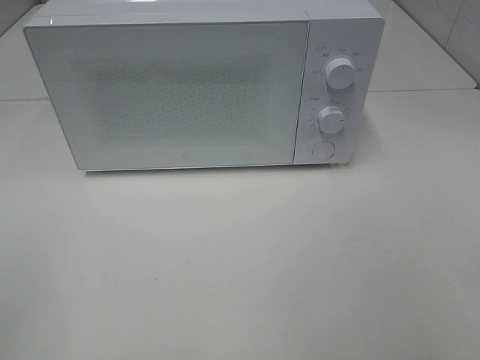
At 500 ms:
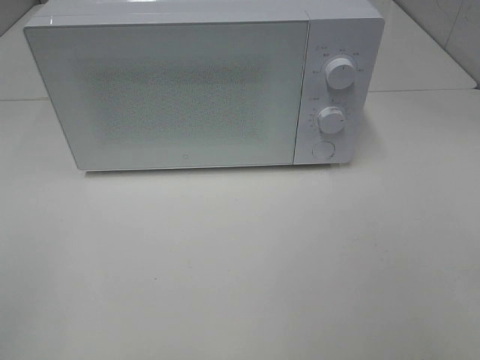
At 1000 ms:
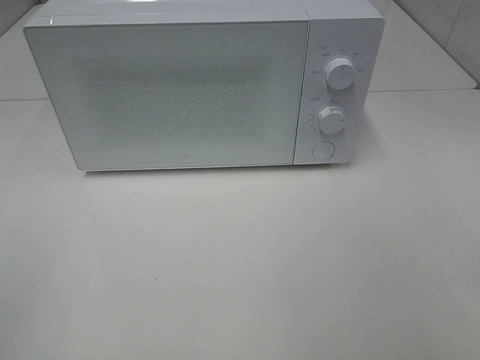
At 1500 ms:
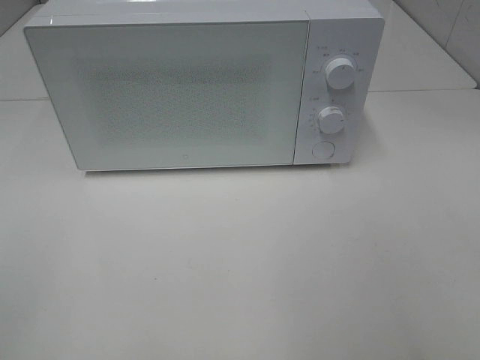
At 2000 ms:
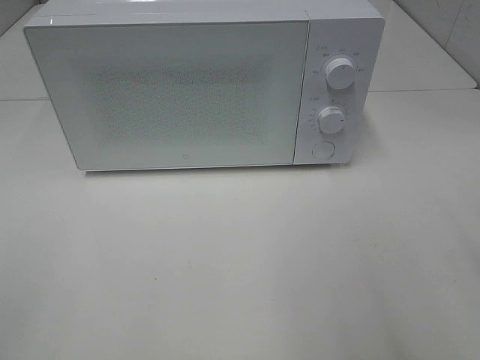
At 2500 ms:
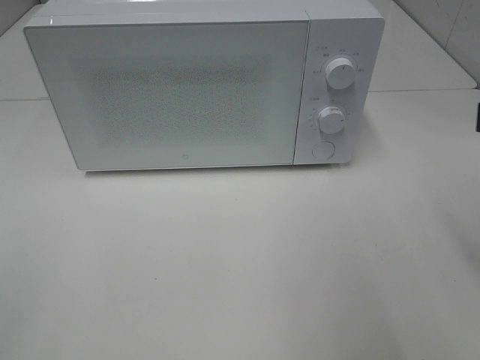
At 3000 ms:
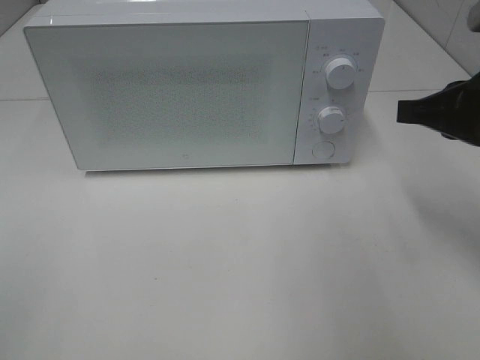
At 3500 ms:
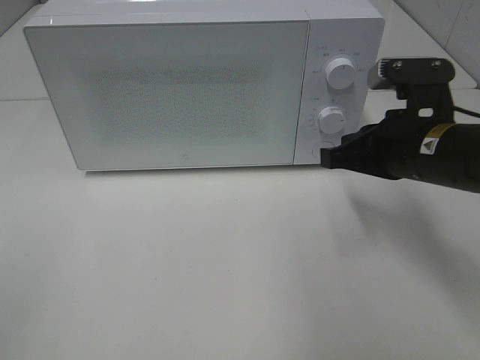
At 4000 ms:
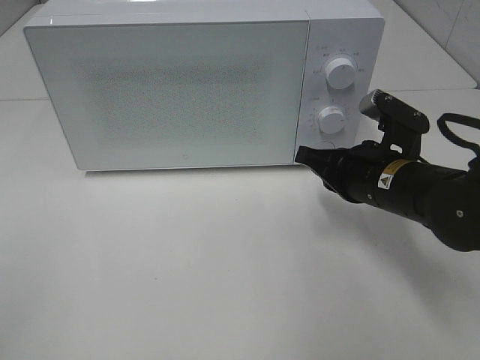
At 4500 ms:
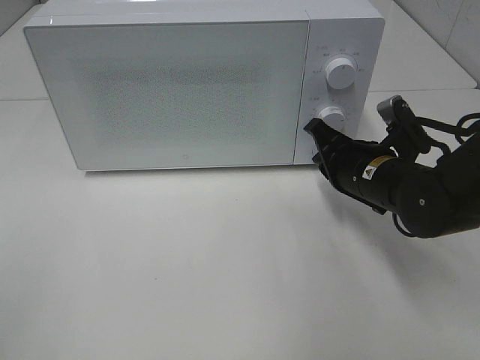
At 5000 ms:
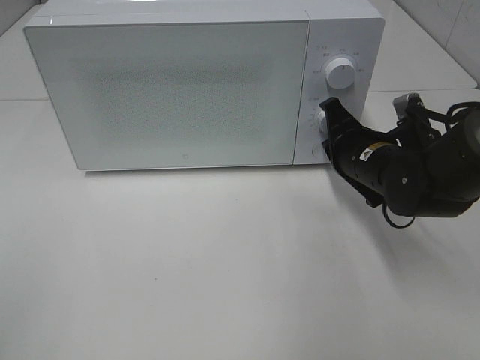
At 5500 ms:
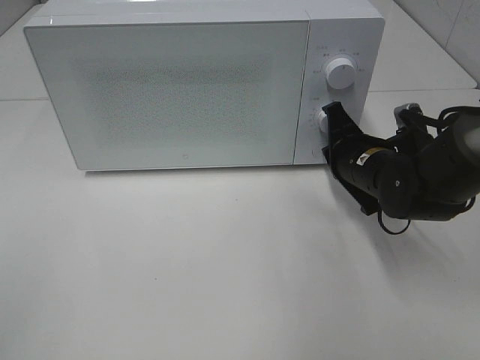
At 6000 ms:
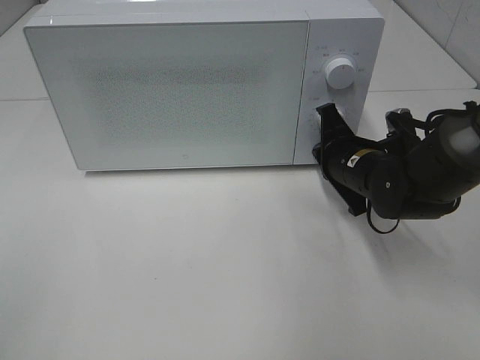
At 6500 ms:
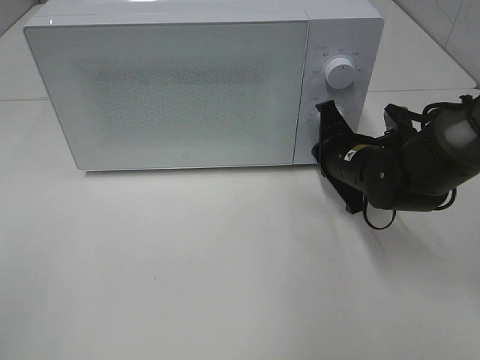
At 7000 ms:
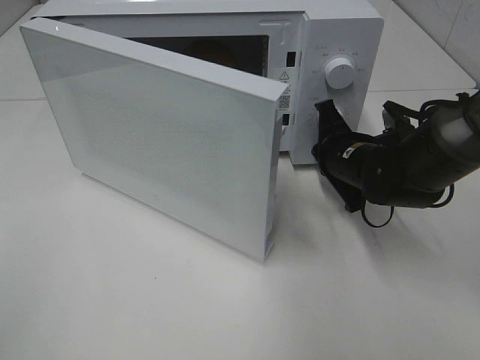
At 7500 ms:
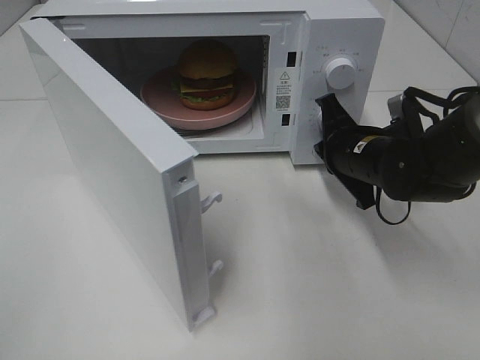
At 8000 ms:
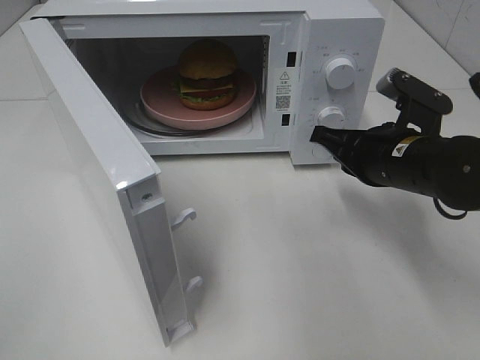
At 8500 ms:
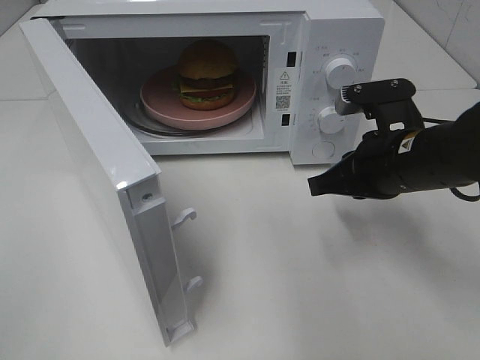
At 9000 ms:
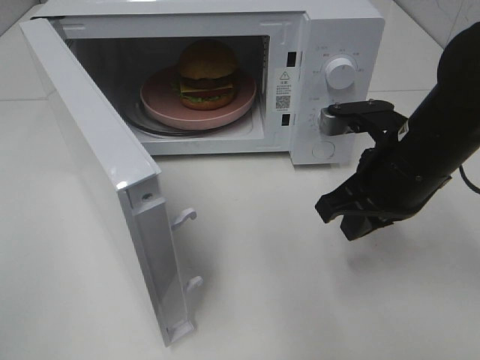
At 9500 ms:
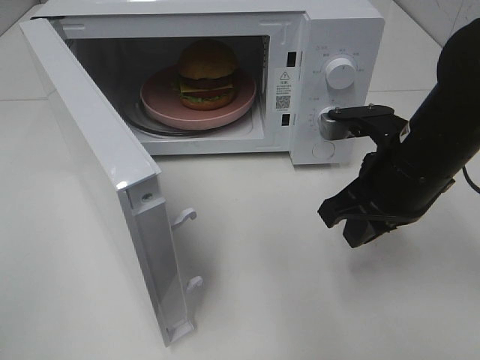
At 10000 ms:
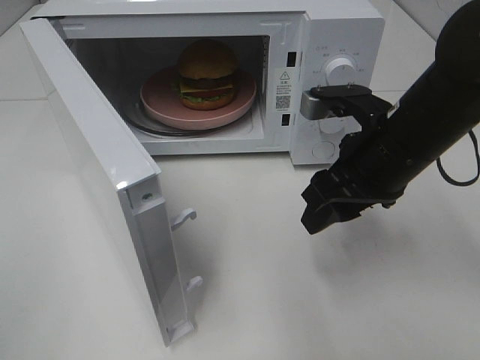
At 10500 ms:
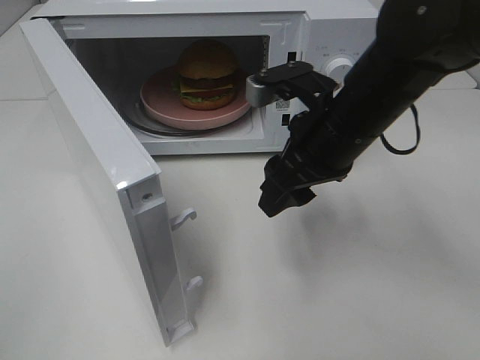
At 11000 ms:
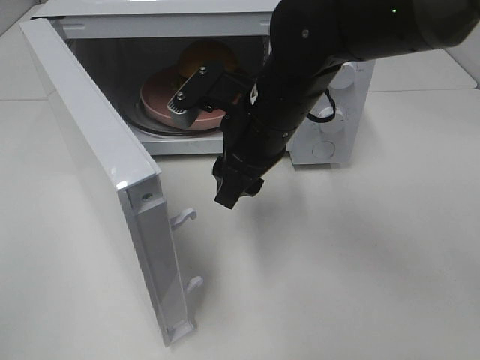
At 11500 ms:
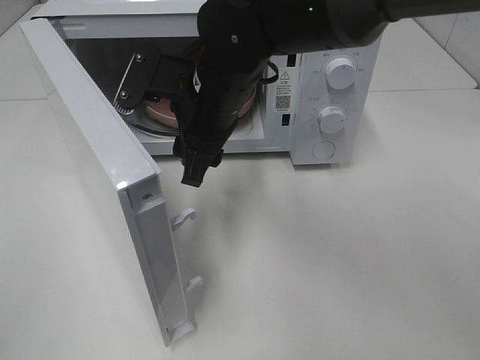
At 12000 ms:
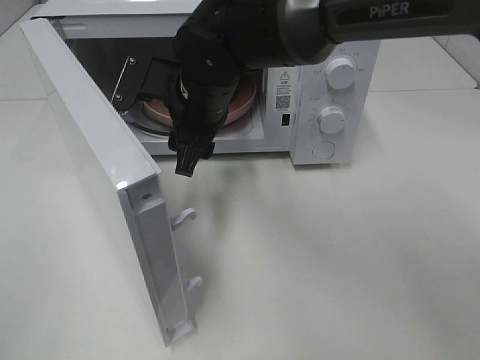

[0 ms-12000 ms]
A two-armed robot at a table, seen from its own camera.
Task of the whole recording: Heat the burger.
Step, 0 ms to 7500 ms: Right hand: press the switch.
2000 ms to 4000 ms: The right gripper moves downward, forward and to the left, roughly 25 cm, and closes.
4000 ms to 6000 ms: The right gripper moves forward, some 5 cm.
6000 ms to 8000 ms: The right gripper heads upward and backward, covering some 10 cm.
8000 ms to 10000 ms: The right gripper shifts by about 5 cm, and opens.
10000 ms to 12000 ms: The right gripper is displaced to the left and forward by approximately 20 cm.

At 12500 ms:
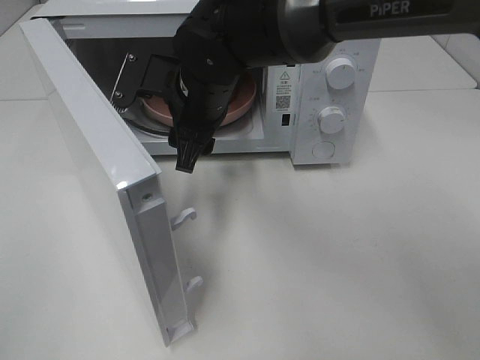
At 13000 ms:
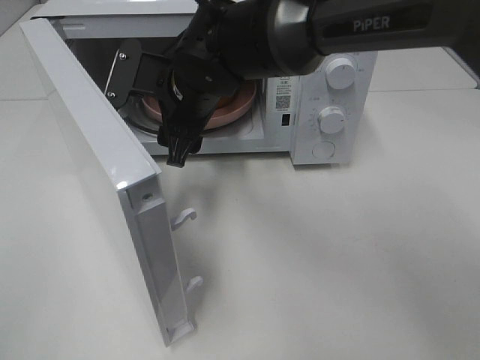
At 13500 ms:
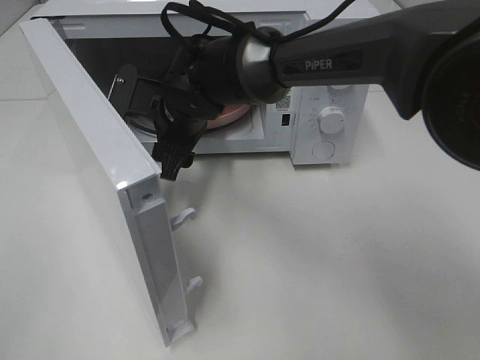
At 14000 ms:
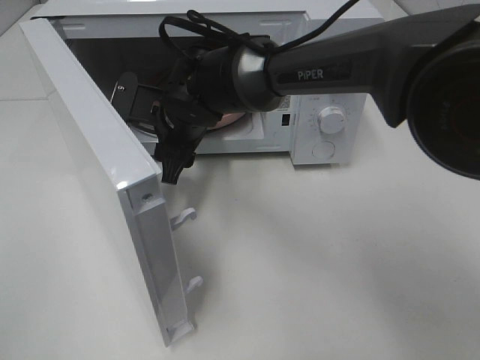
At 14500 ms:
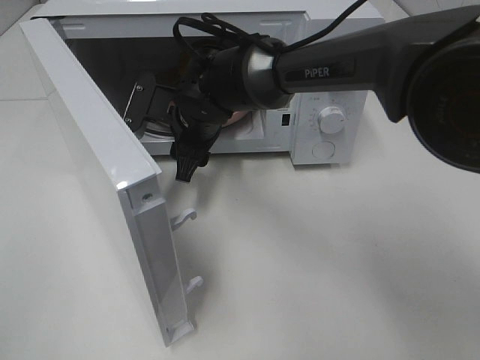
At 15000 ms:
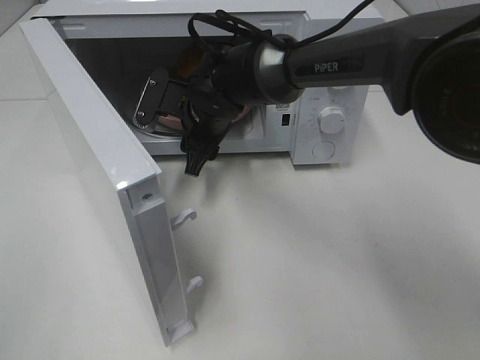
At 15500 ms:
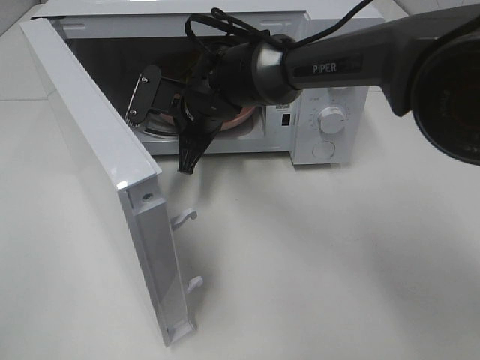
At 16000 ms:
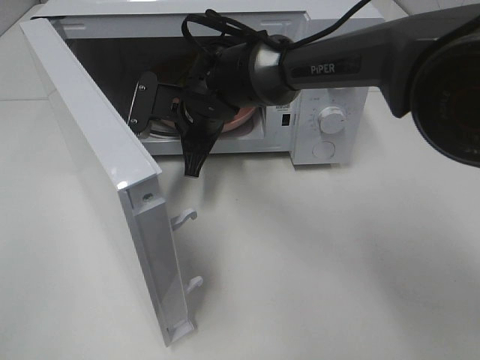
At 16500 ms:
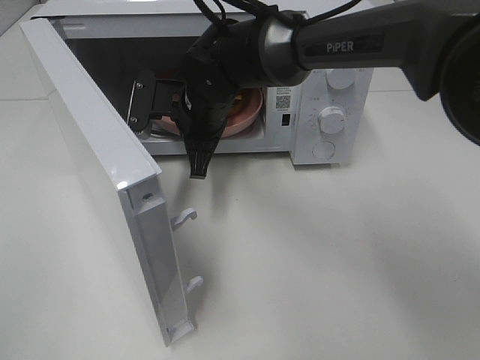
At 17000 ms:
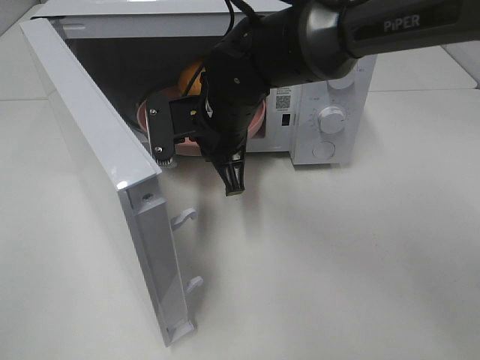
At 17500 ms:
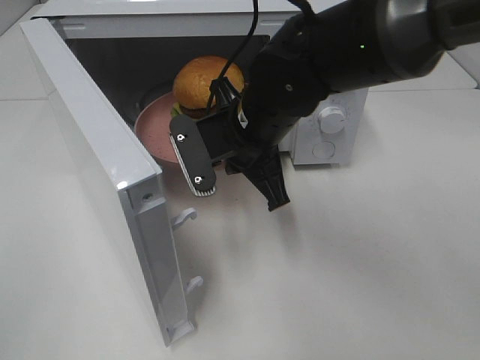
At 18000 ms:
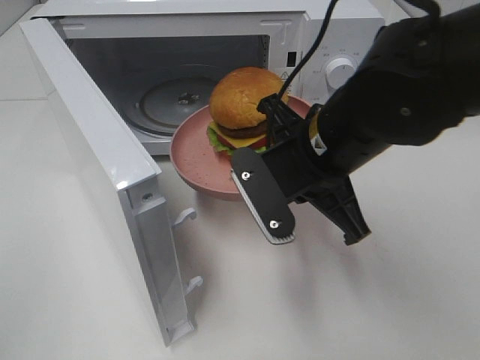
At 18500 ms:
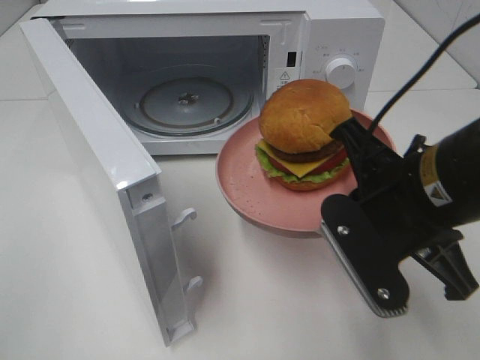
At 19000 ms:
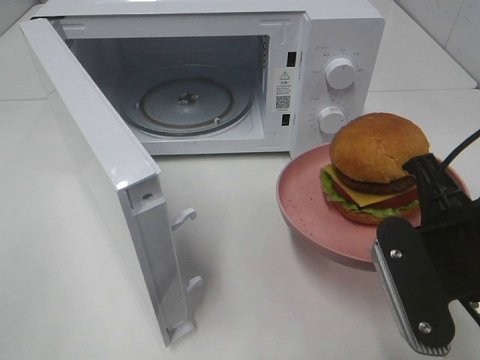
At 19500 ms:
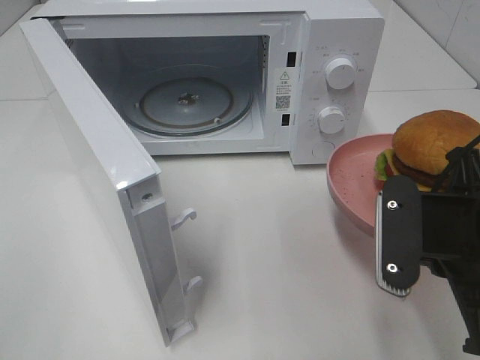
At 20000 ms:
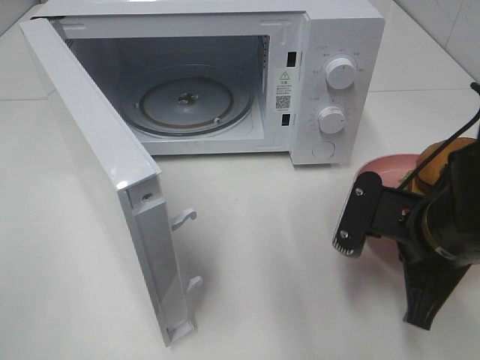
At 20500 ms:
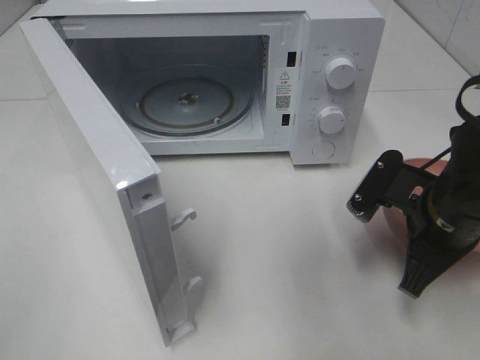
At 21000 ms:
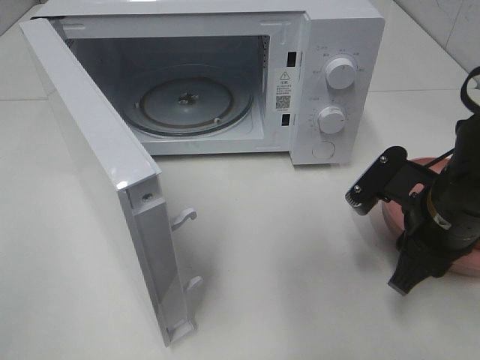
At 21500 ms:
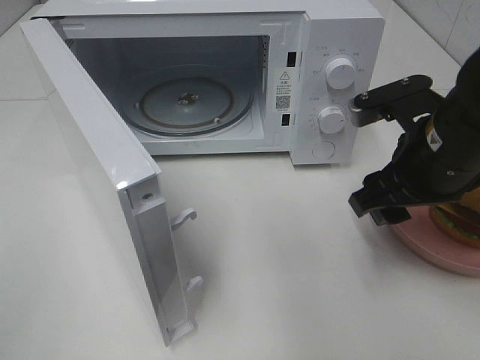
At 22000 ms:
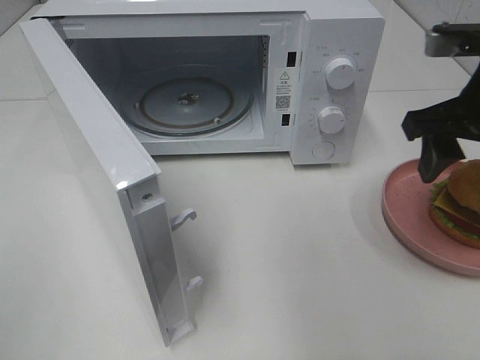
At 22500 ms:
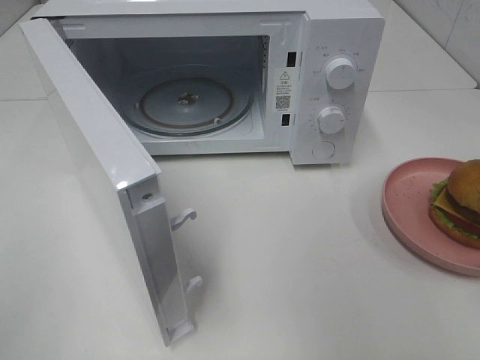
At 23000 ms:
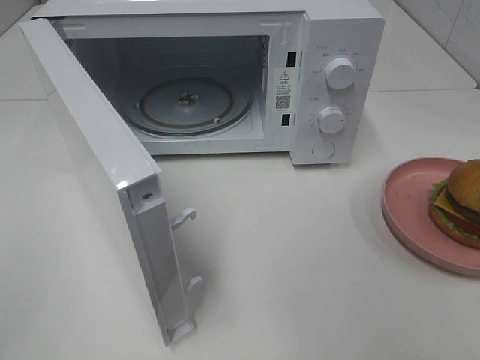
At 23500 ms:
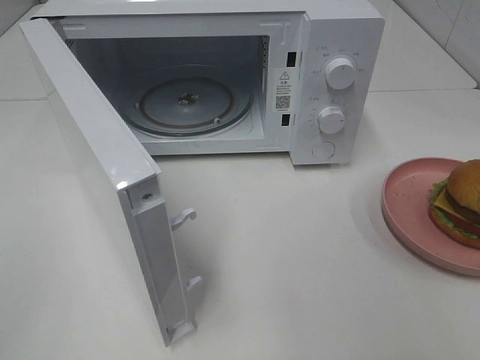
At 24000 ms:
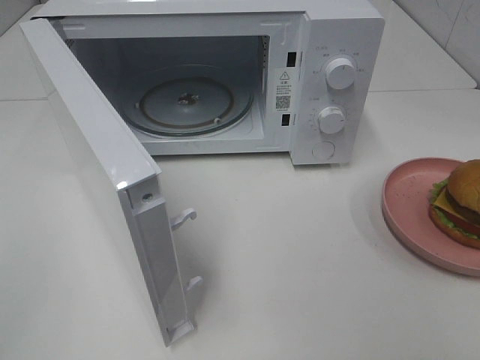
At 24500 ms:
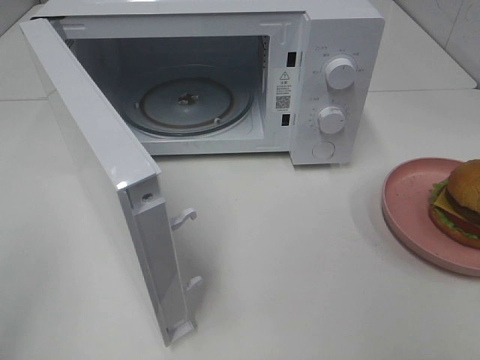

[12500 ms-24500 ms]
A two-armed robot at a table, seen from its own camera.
Task of the whole recording: Heat the burger.
Step, 12500 ms to 15500 ms: Right hand: grab the plate with the hamburger.
Step, 16000 ms to 21000 ms: Right hand: place the plate on the table.
12500 ms to 14500 ms: The right gripper is displaced downward by approximately 5 cm.
14500 ms to 16500 ms: The right gripper closes up.
16500 ms to 18500 ms: The right gripper goes roughly 25 cm backward and to the right.
18500 ms to 20500 ms: The right gripper is displaced downward and to the right by approximately 10 cm.
20500 ms to 22500 ms: The right gripper is displaced upward by approximately 20 cm, and opens its fingers.

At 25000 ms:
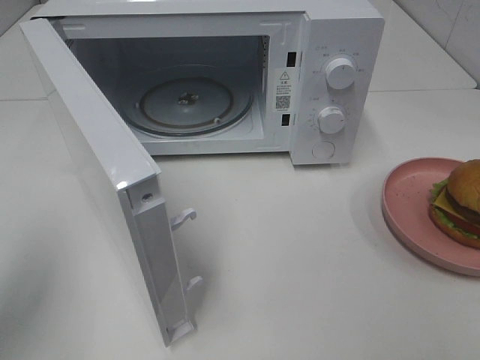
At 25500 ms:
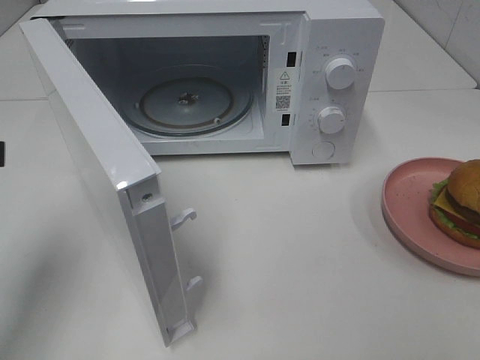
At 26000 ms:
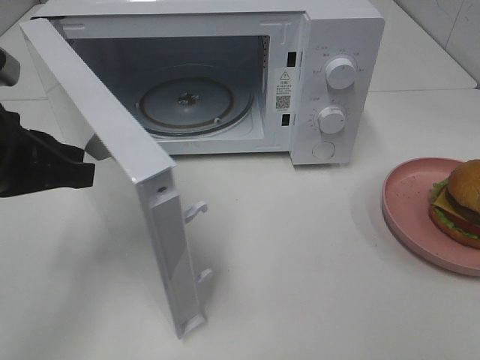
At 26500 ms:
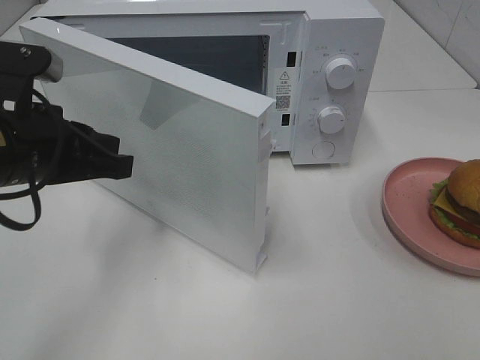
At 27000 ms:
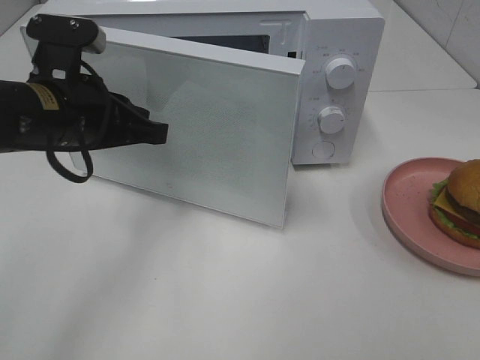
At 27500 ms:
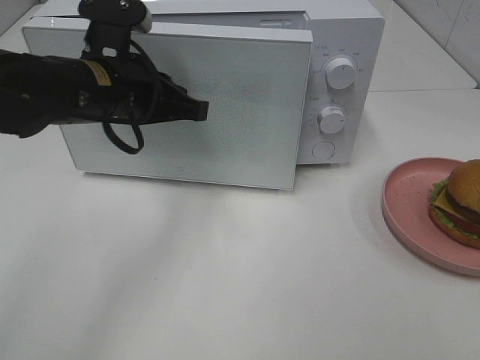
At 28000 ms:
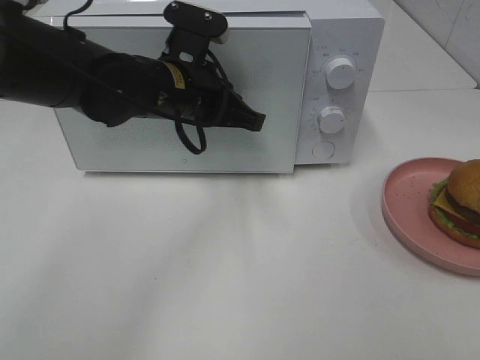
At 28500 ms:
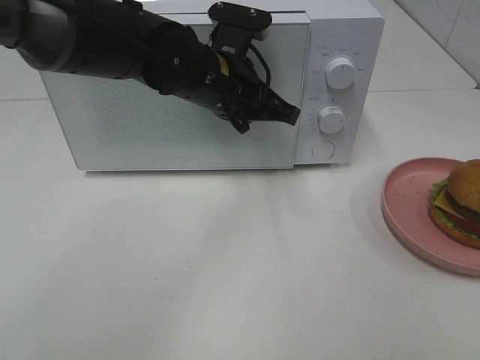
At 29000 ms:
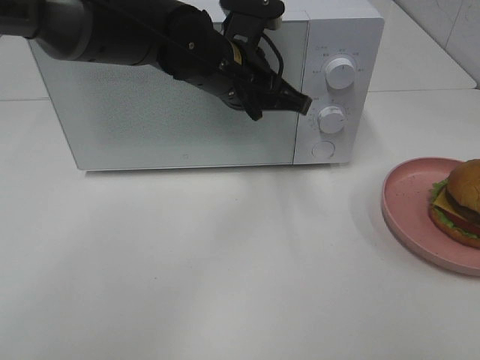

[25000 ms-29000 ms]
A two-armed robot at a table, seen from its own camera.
Task of the whole recording: Heat the burger.
25000 ms to 27000 ms: The left gripper is displaced forward, to the right and downward by approximately 20 cm.
27000 ms to 29000 ms: The left gripper is displaced to the right and forward by approximately 15 cm.
